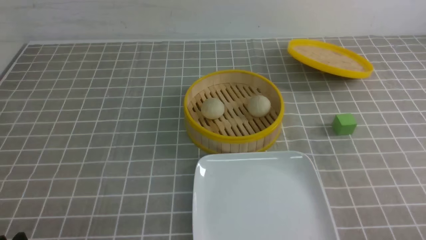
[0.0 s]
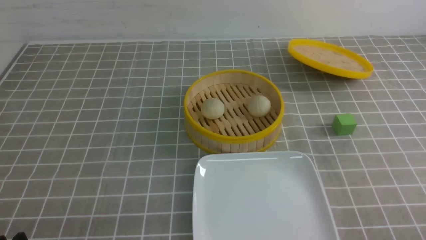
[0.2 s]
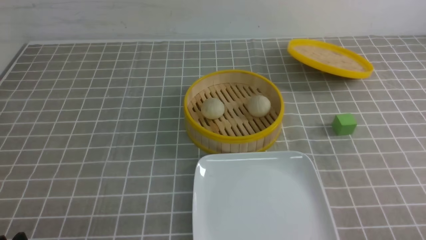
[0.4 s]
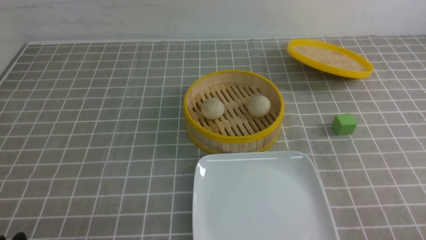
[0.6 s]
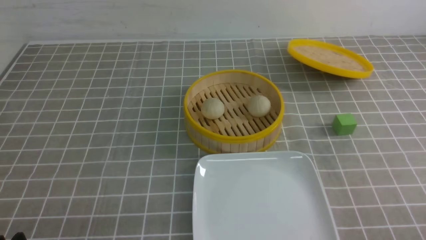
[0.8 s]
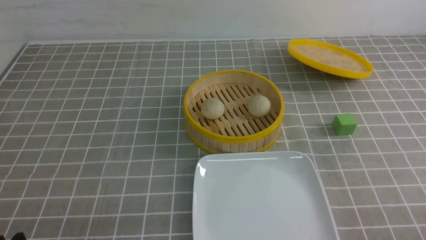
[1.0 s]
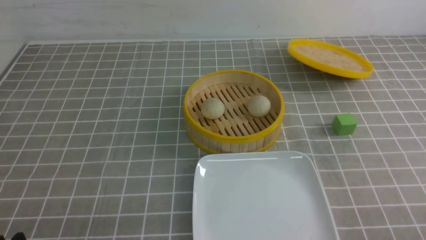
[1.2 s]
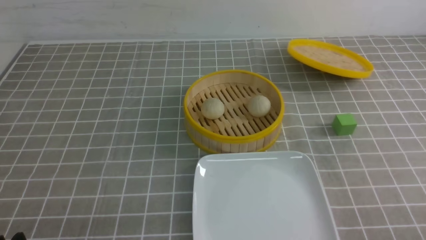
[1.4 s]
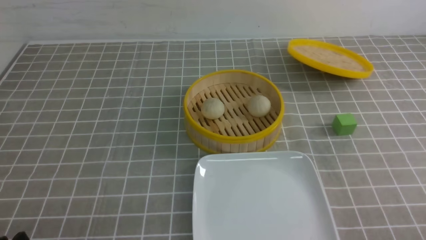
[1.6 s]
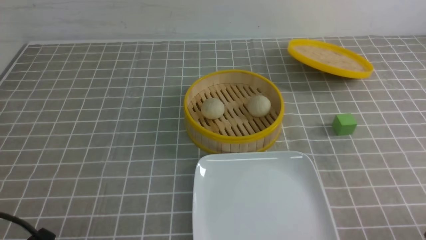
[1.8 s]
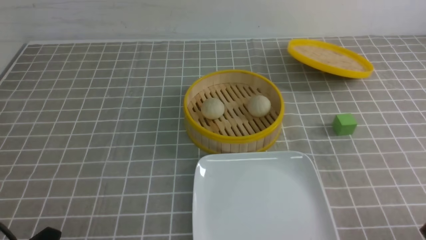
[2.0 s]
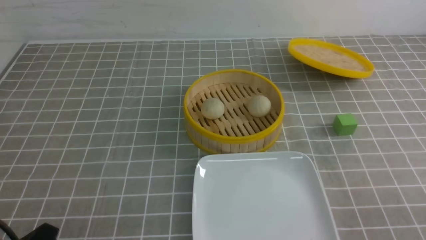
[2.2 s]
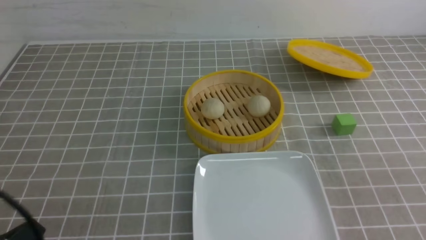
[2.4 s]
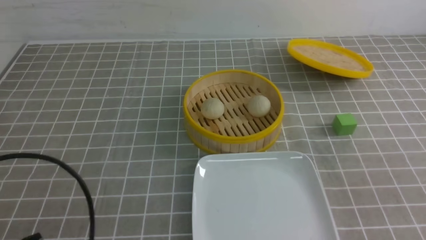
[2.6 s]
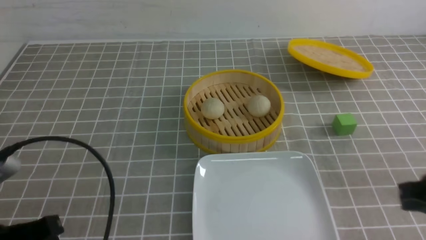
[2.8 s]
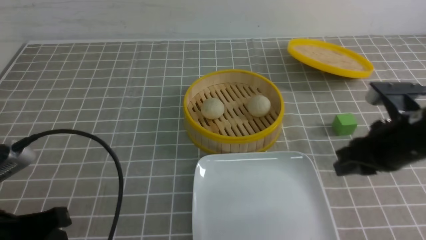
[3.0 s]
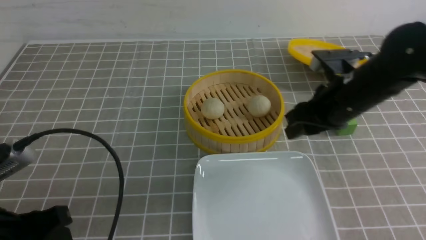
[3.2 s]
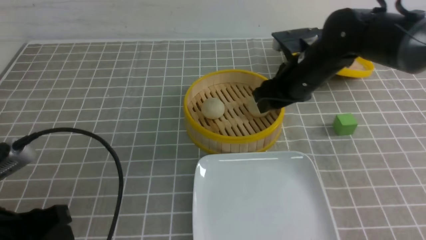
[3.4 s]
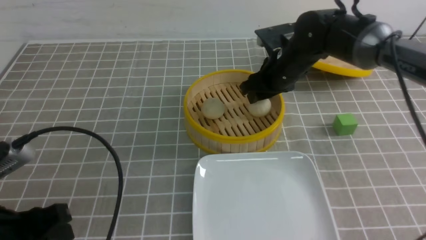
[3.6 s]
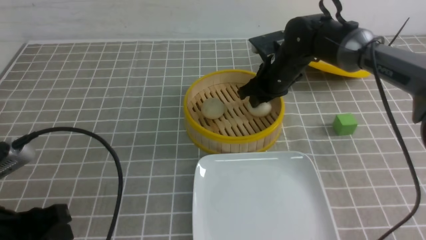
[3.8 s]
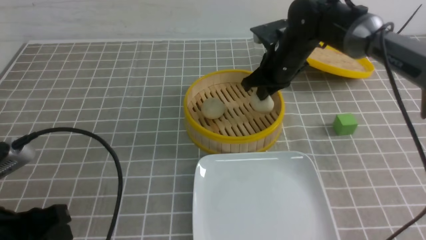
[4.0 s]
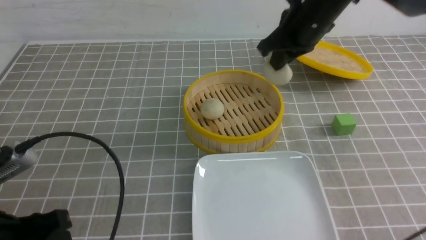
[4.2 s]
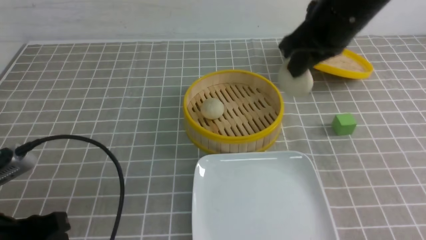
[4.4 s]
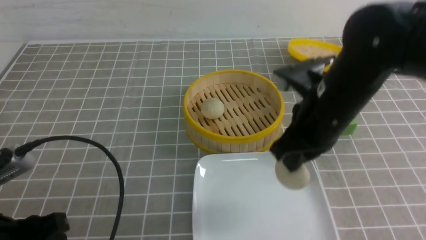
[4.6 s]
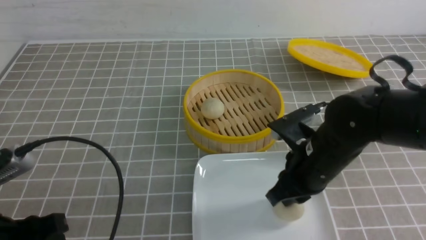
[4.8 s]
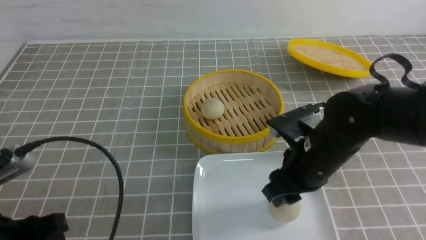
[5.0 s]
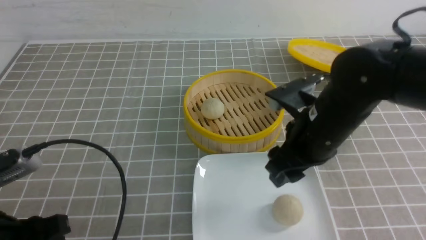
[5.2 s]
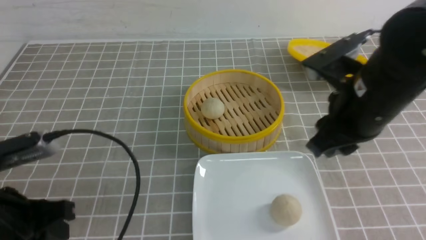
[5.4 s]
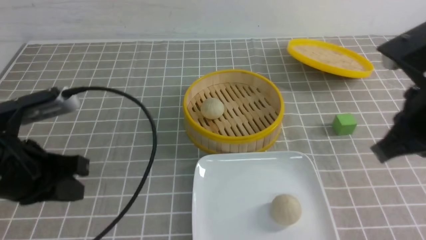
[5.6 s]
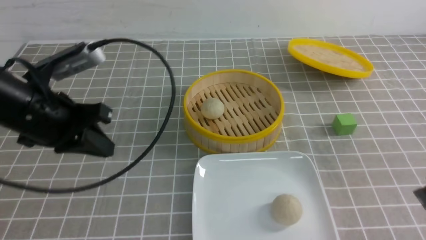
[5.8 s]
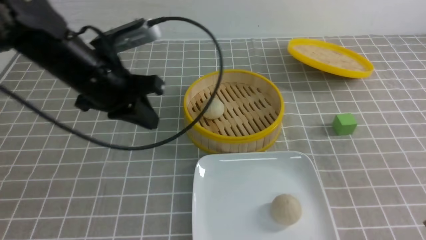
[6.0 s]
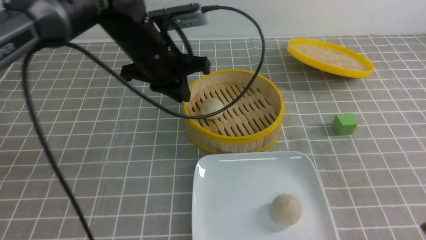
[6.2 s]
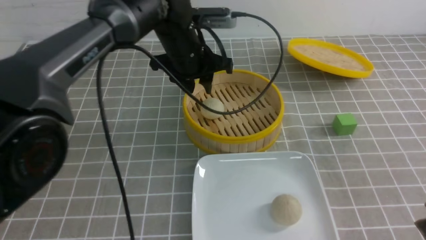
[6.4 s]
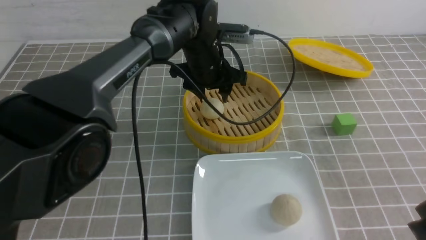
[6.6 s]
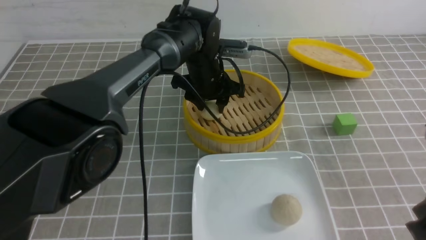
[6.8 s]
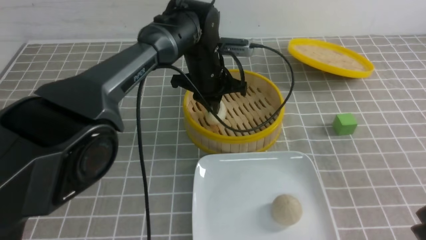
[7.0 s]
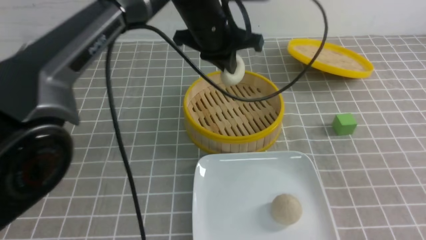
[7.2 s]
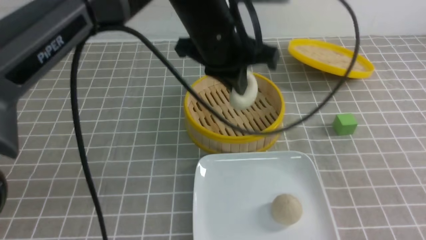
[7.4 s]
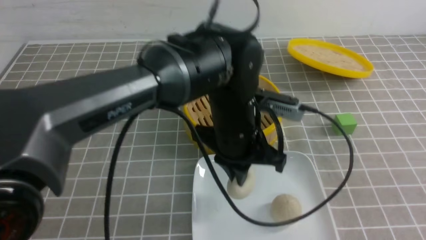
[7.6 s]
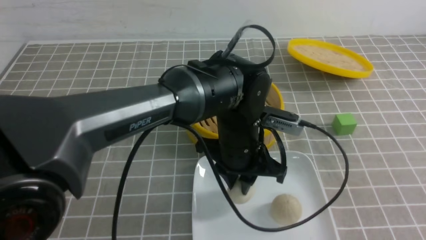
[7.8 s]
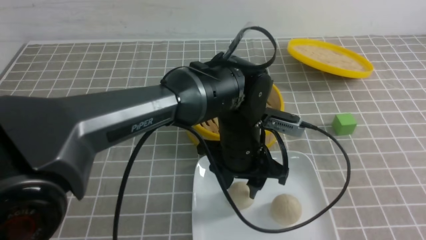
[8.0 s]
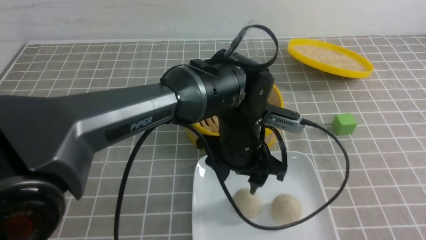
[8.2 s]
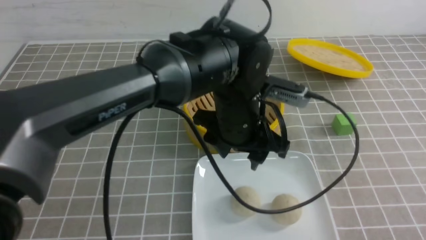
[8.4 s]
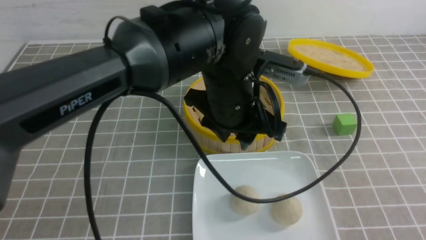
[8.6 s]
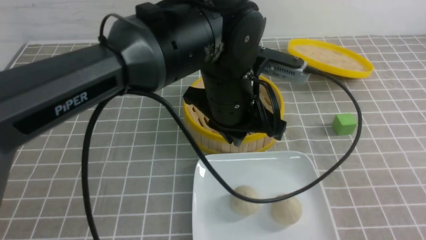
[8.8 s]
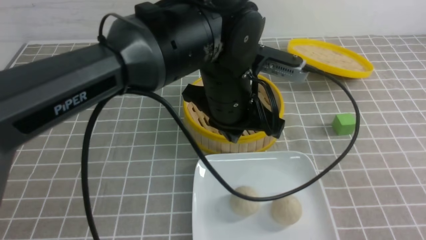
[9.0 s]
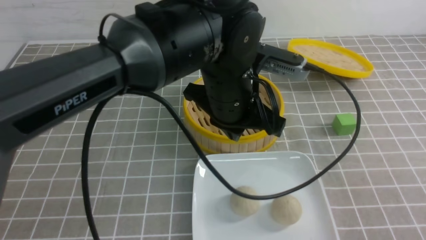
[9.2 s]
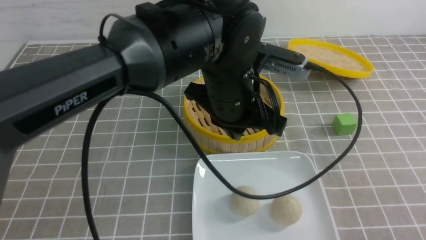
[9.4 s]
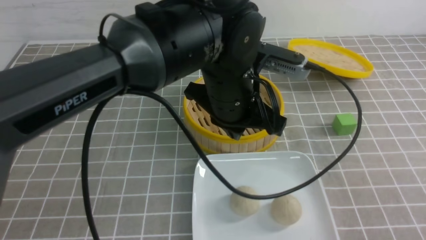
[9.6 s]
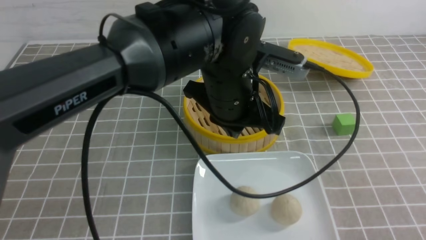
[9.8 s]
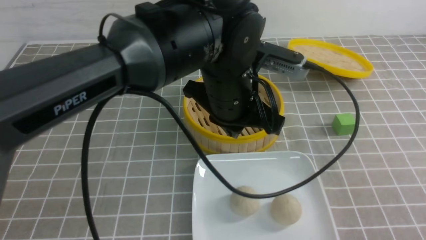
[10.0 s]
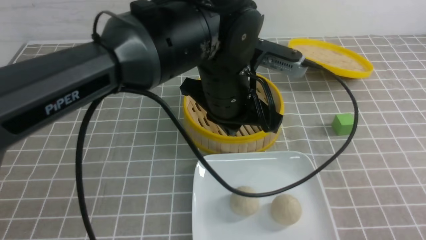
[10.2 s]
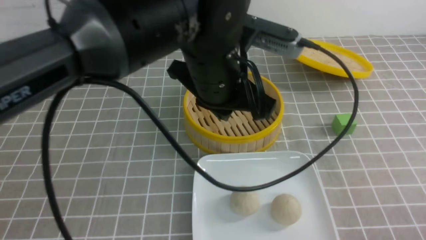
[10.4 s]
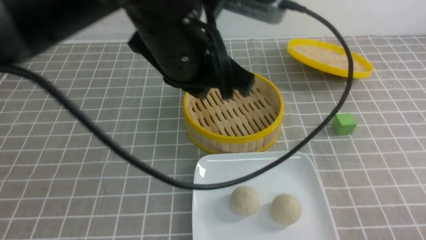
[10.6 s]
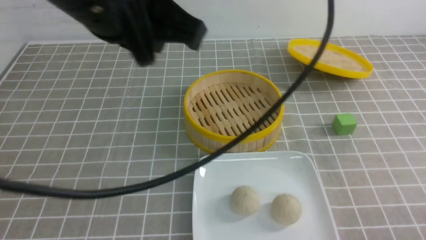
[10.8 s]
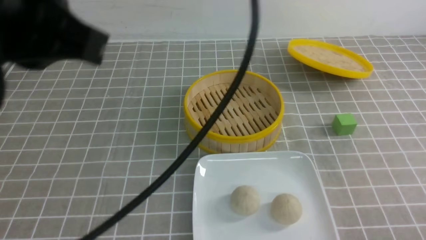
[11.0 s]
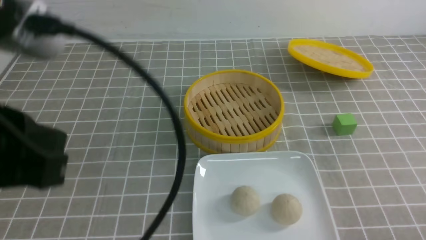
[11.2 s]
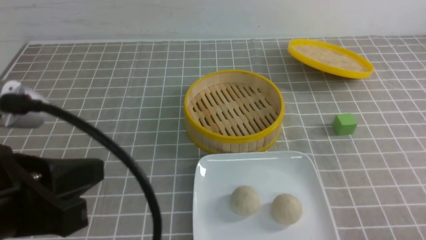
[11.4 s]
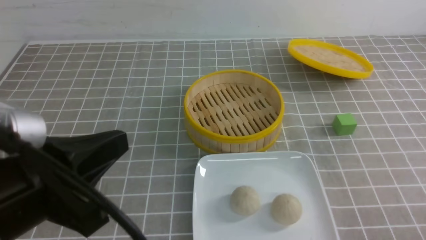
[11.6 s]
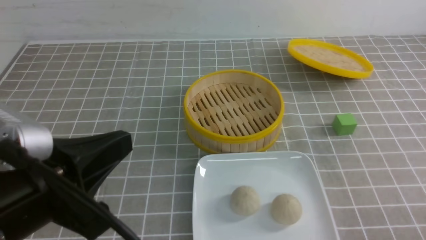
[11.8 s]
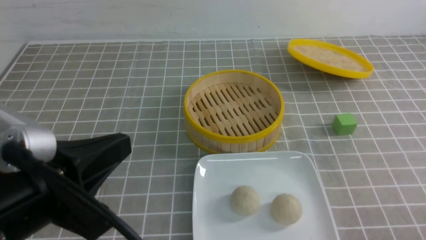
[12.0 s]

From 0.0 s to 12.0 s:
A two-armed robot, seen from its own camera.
Step, from 0.0 s to 3.8 s: use the right arm to grab the steamed stuffed bun that is closest to it.
Step, from 4.2 s to 5.0 s: use the right arm to put the steamed stuffed bun into the plate.
Step, from 5.2 s to 6.8 s: use the left arm to grab the steamed stuffed bun that is closest to it.
Step, from 7.2 s to 8.0 s: use the left arm to put the steamed stuffed bun into the plate.
From 1.6 s to 3.0 s: The right gripper heads forward, upward and to the left, covering about 25 cm, and closes and opens again, while the left gripper moves upward and forward, some 10 cm.
From 3.0 s to 4.4 s: The left gripper opens its fingers; the right gripper goes roughly 15 cm to the left, forward and upward, and closes its fingers.
From 4.4 s to 6.0 s: The left gripper goes about 25 cm forward and to the right, and closes, while the right gripper goes about 25 cm backward and to the right, and opens and closes again.
From 6.0 s to 7.6 s: The left gripper shifts some 20 cm to the right, and opens, then closes again. Meanwhile the right gripper travels backward and to the right by about 10 cm.
From 7.6 s to 9.0 s: The right gripper moves downward, some 10 cm. Meanwhile the left gripper opens and closes again.
From 9.0 s to 10.4 s: The right gripper shifts approximately 5 cm downward; the left gripper heads upward, covering some 5 cm.
From 10.4 s to 12.0 s: The left gripper is displaced backward and to the left by roughly 25 cm.

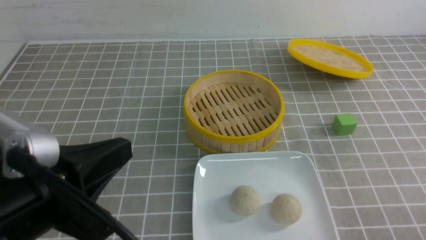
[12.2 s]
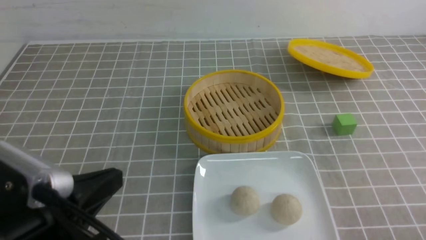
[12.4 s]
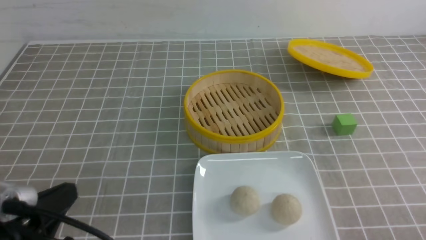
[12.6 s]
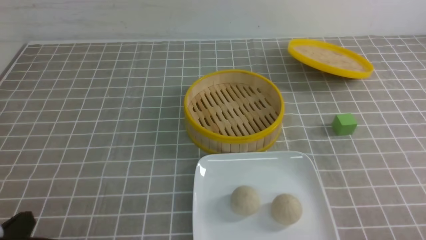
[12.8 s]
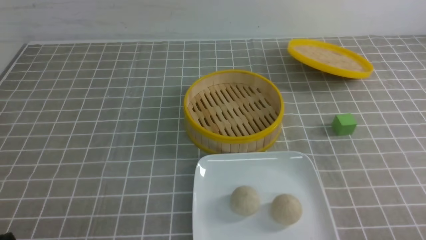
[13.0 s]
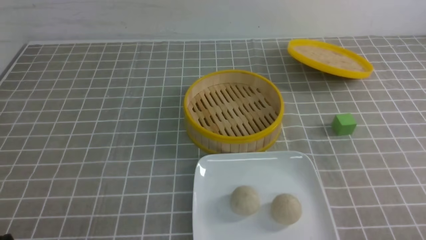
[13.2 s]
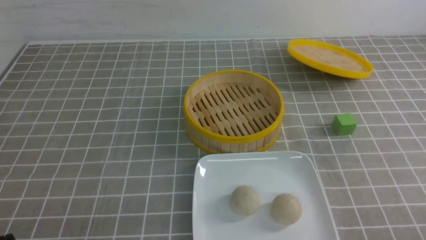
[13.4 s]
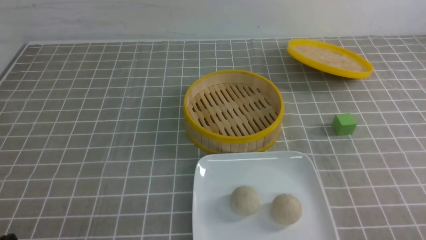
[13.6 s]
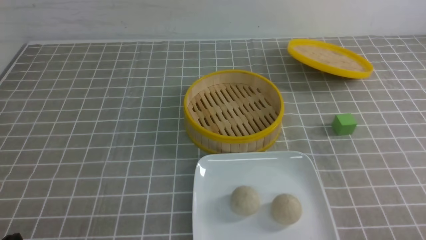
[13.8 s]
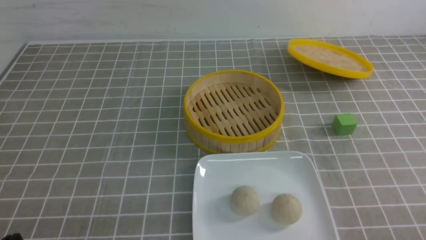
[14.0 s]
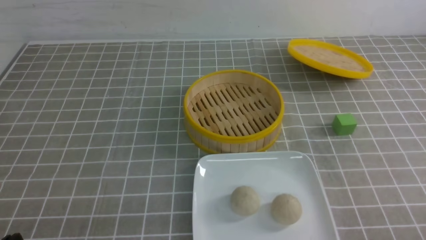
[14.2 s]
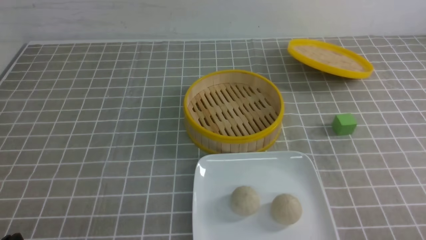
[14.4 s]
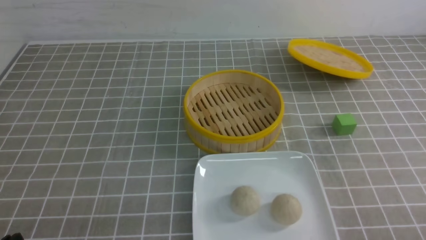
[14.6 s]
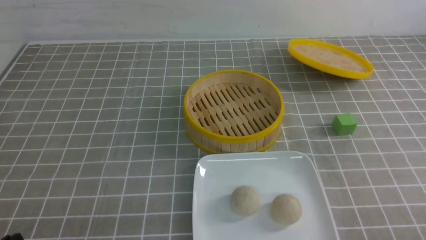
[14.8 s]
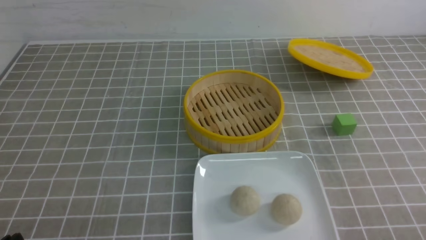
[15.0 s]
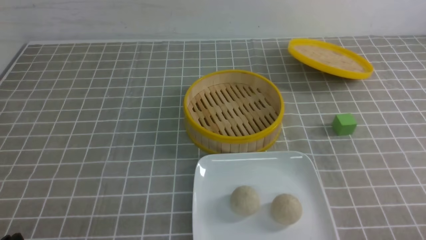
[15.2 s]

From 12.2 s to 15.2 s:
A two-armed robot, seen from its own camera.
From 12.2 s to 13.8 s: The left gripper travels downward and to the left by approximately 15 cm.
From 13.8 s to 15.2 s: Neither gripper changes place.
